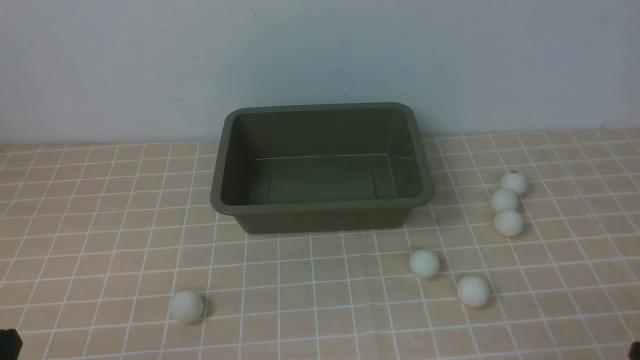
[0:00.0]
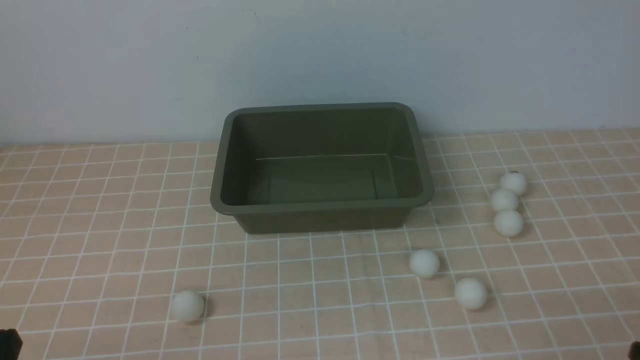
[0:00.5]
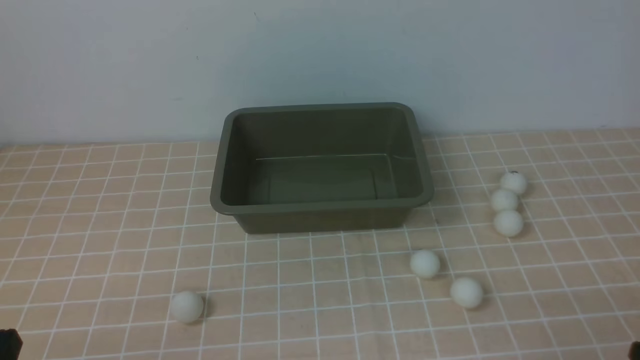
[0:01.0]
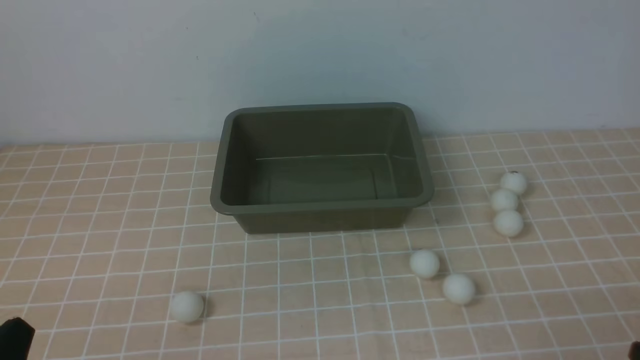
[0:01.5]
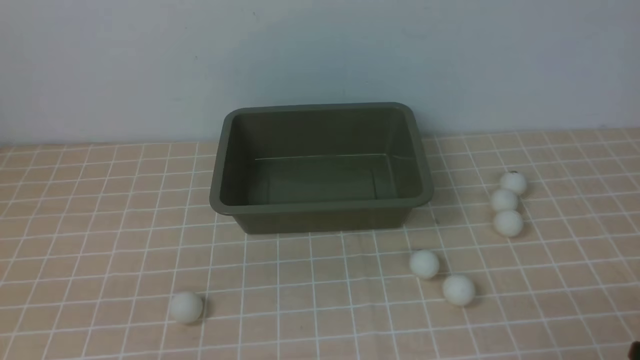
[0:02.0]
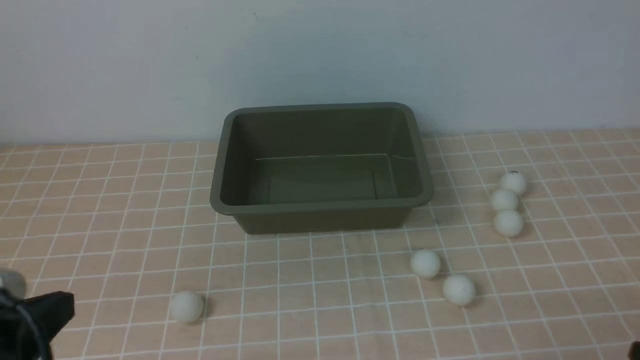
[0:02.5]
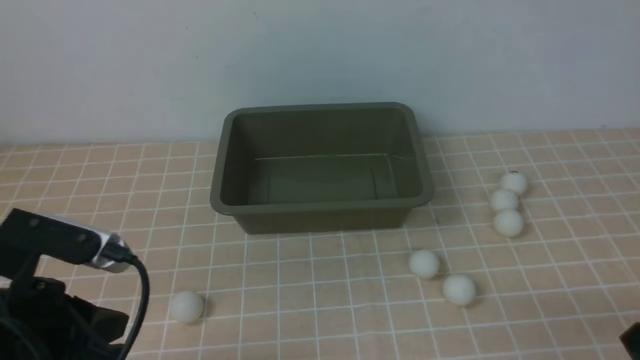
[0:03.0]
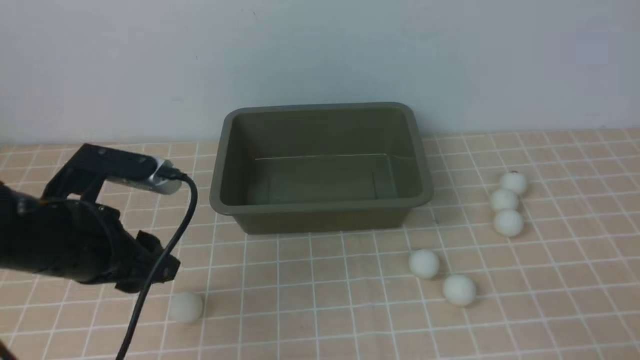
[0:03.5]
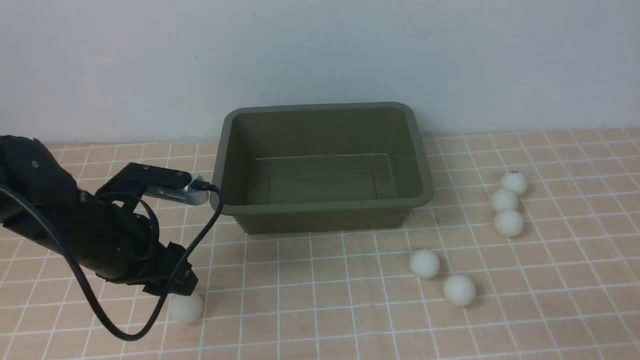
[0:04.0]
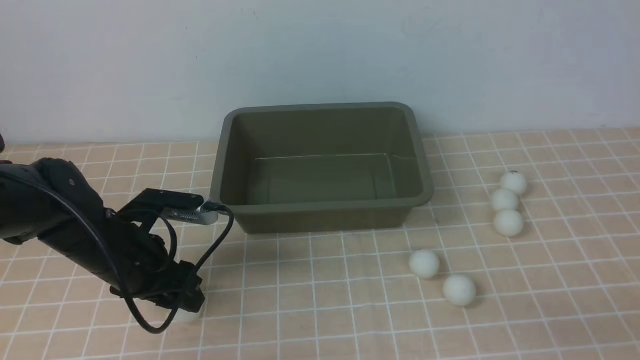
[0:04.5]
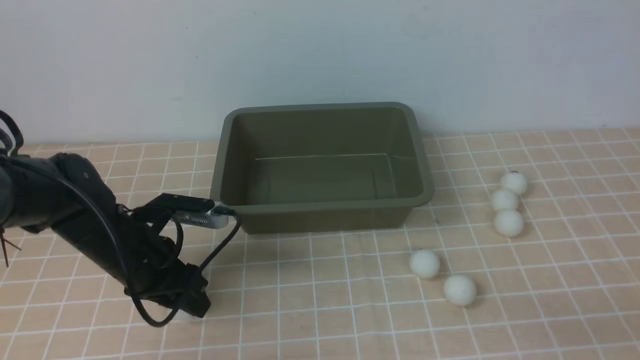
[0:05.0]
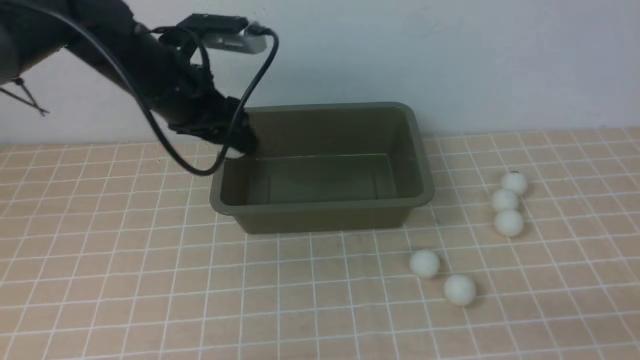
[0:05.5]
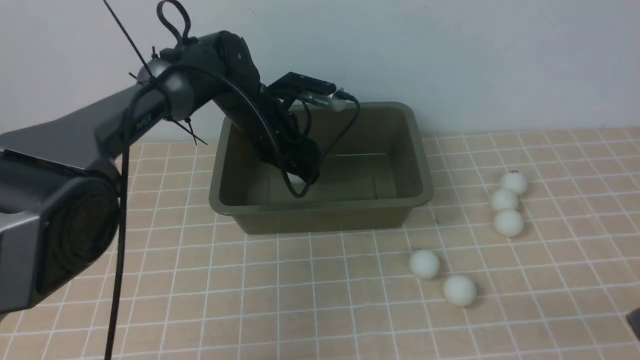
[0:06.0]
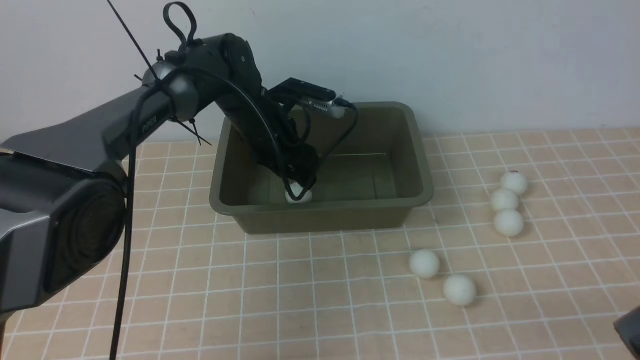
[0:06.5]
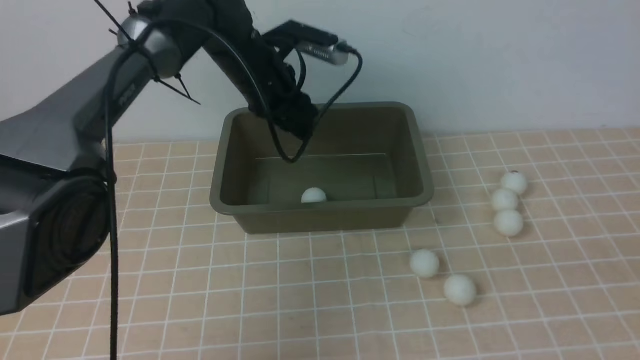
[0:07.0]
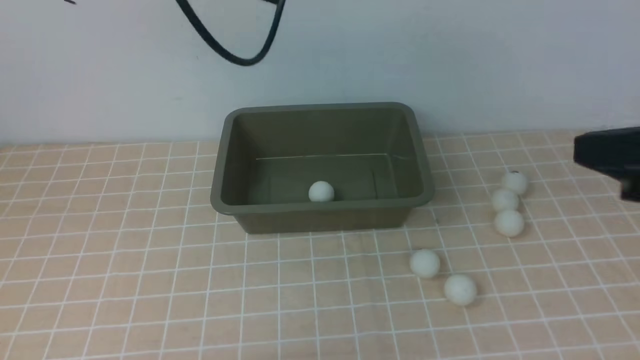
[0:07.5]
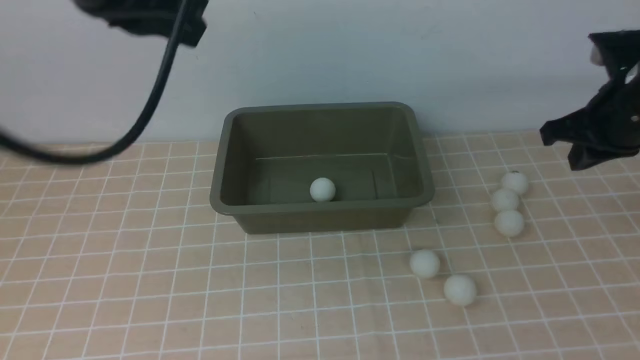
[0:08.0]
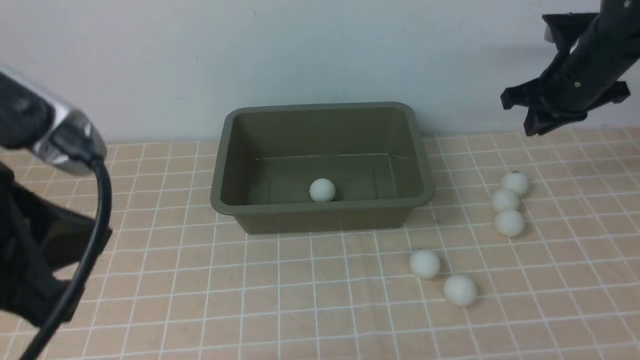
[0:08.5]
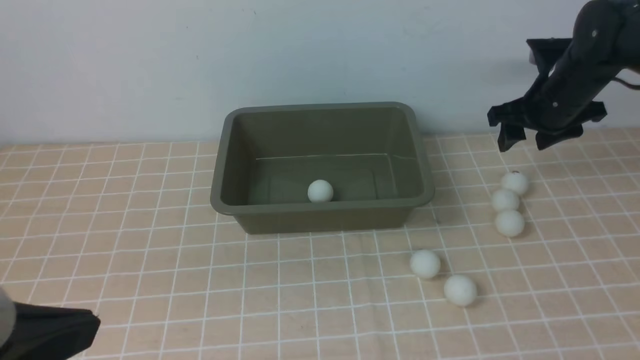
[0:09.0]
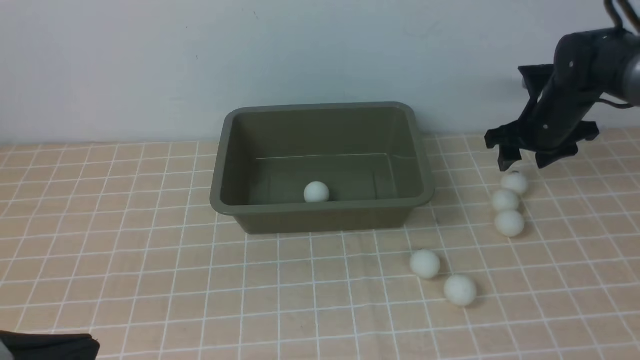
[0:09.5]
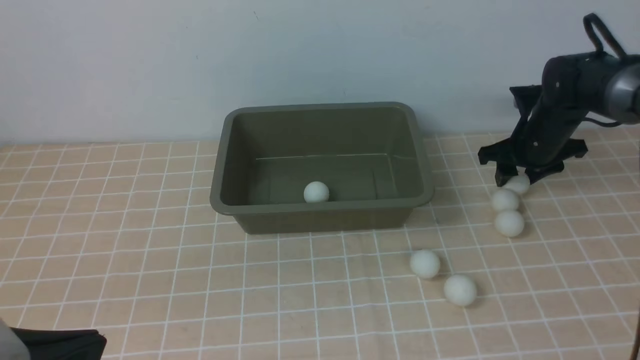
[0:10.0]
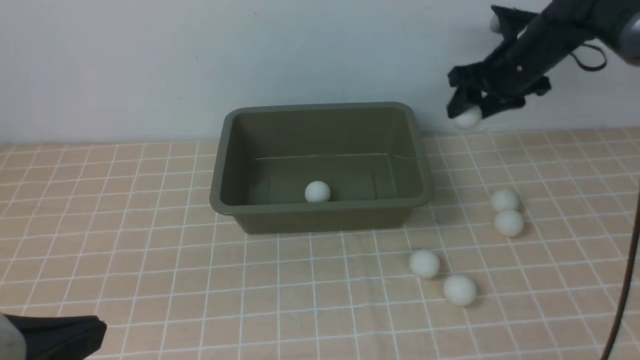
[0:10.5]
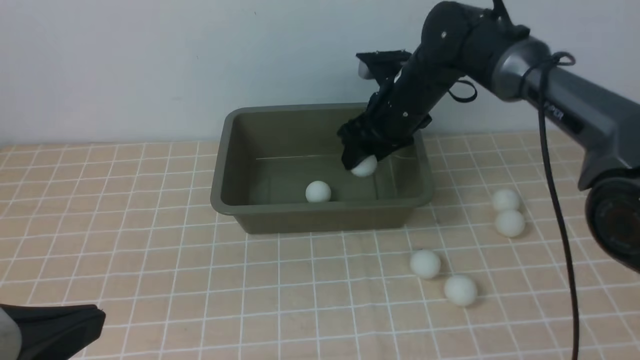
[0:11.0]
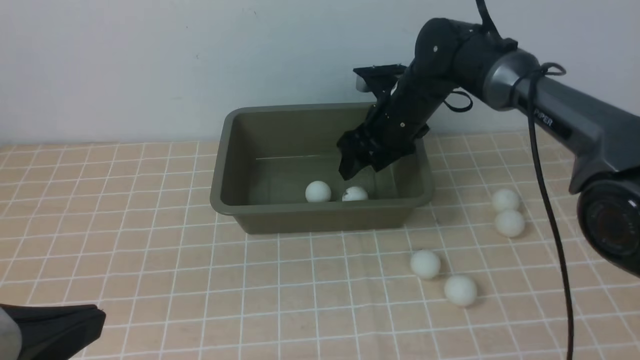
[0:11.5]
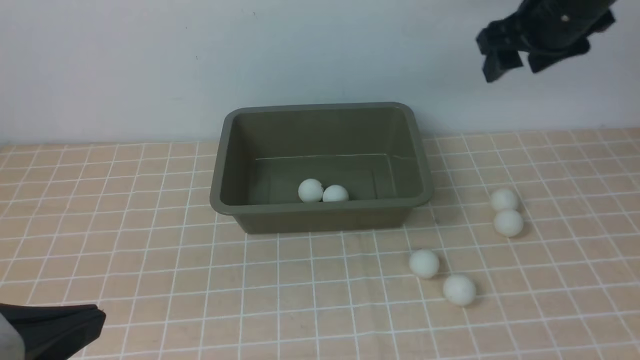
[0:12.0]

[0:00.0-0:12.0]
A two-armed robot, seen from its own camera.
Step, 0:00.0 to 0:05.0: use the left arm to clamp the table tennis ball closest to it.
Step, 0:05.5 to 0:06.5: use the left arm to put the table tennis ball into the box.
Step, 0:07.0 to 0:10.0: use the right arm to clamp the table tennis ball closest to it.
Step, 0:10.5 to 0:12.0: use the right arm to put the table tennis ball into the box.
0:02.0 to 0:04.0: The left gripper heads forward, covering some 20 cm, and opens its fingers.
0:04.0 to 0:06.0: The left gripper is displaced forward and to the right by roughly 25 cm.
0:06.0 to 0:08.0: The right gripper is displaced forward by approximately 30 cm. The left gripper travels upward and backward by about 30 cm, and closes.
0:08.0 to 0:10.0: The left gripper moves backward and downward, approximately 25 cm, while the right gripper is displaced forward and downward by about 20 cm, and opens up.
0:10.0 to 0:12.0: The right gripper shifts about 20 cm upward and to the left.

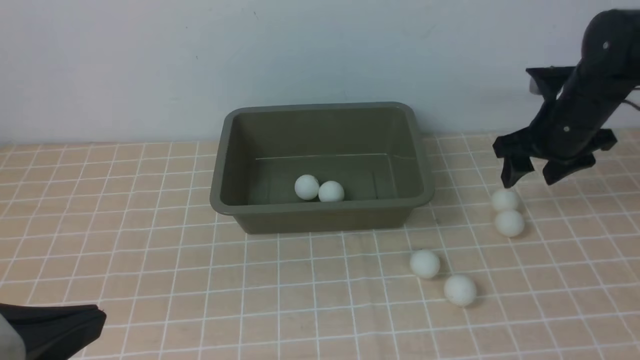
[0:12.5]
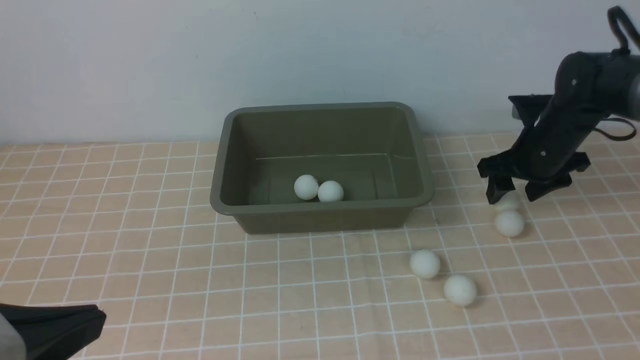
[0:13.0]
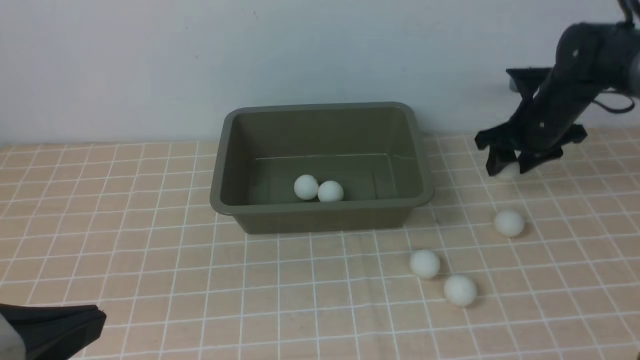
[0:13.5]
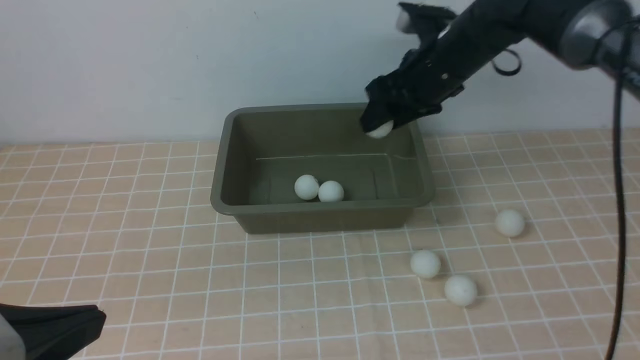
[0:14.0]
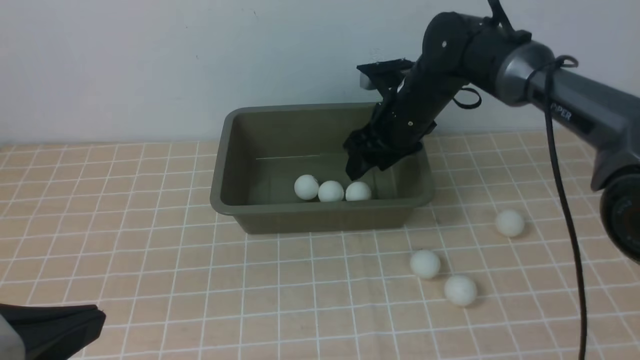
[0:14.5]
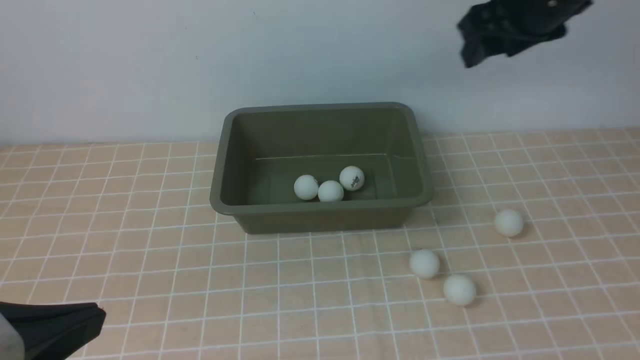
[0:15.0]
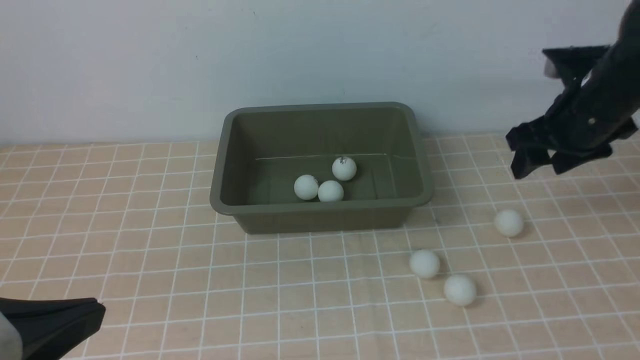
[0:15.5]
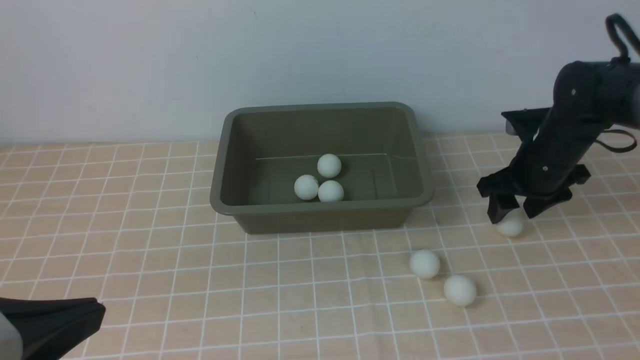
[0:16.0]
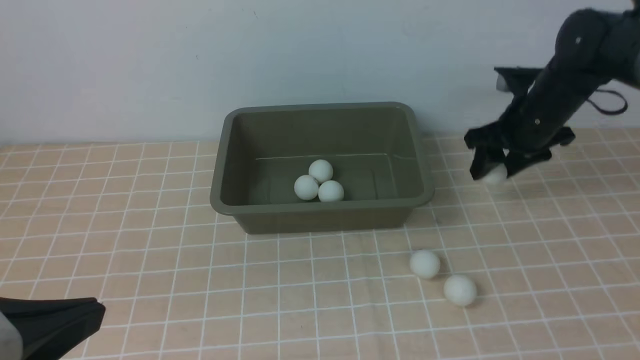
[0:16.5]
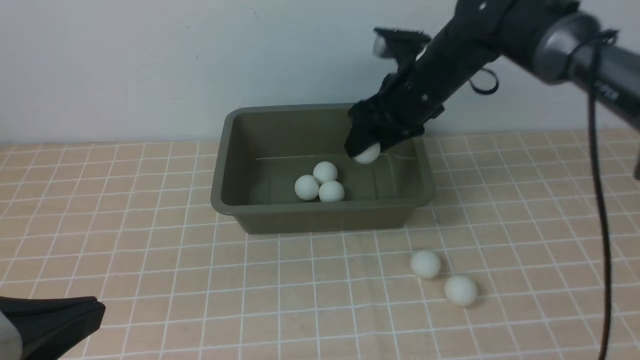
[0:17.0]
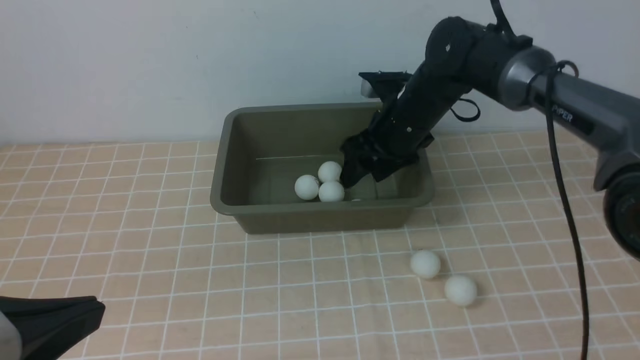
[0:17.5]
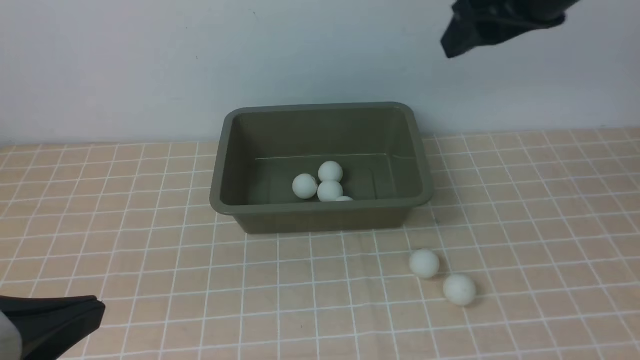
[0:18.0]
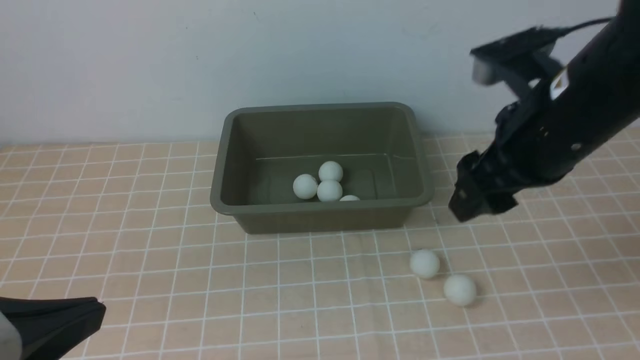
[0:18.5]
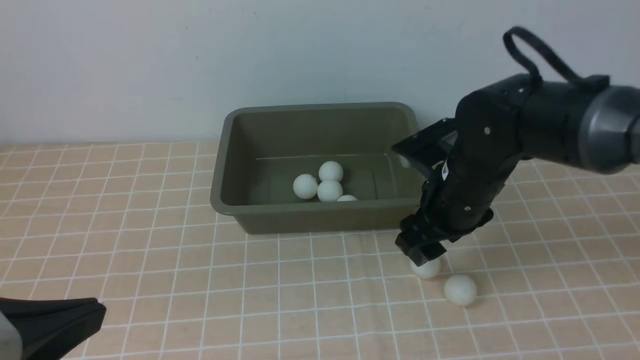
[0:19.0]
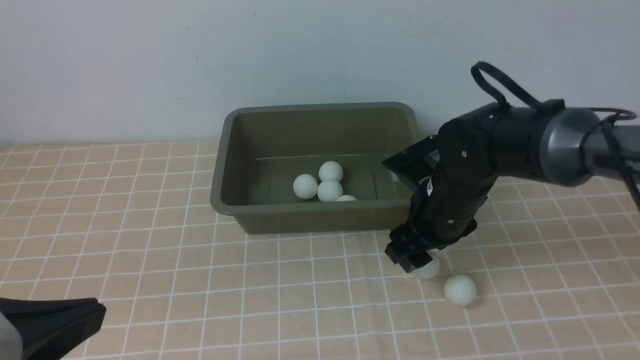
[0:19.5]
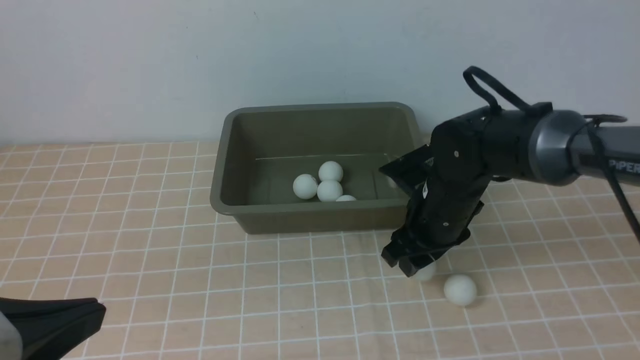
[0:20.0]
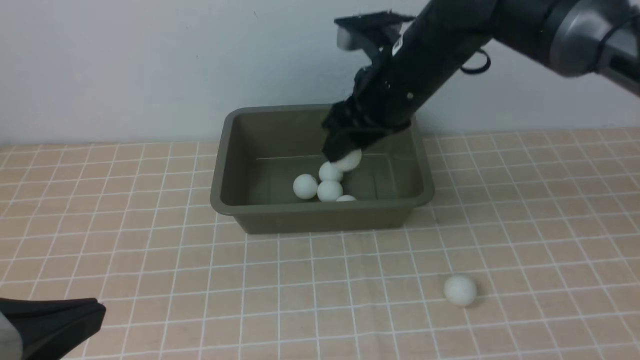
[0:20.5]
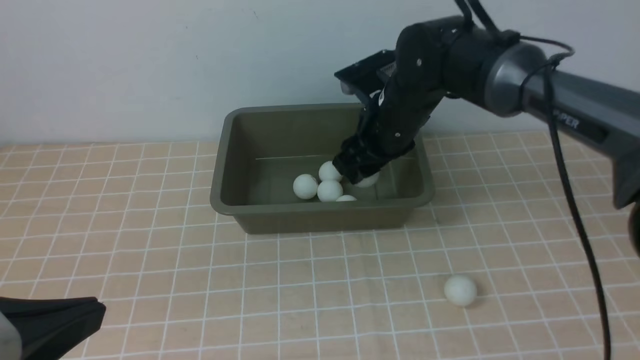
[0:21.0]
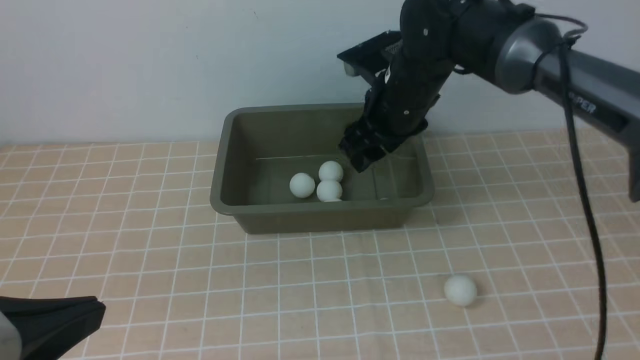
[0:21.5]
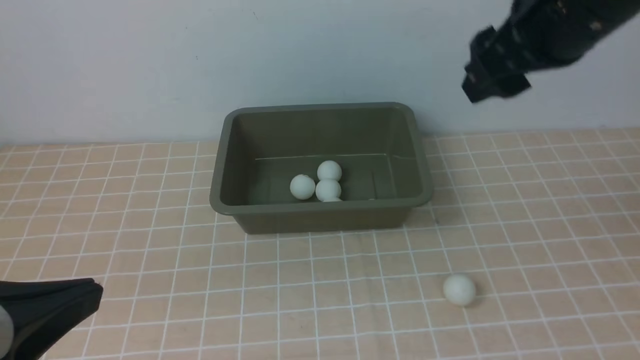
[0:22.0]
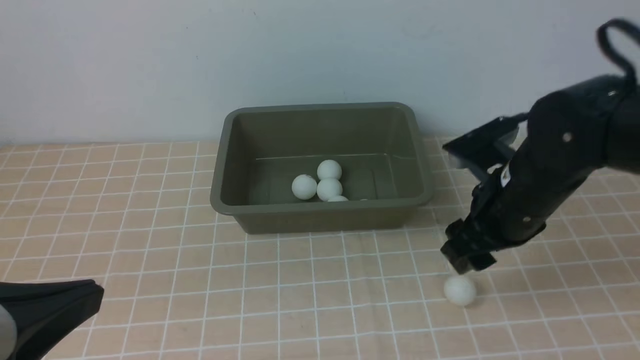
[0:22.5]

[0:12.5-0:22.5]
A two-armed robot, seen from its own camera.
Step, 0:12.5 to 0:13.5: use the right arm to clamp the table tennis ball closest to it.
Step, 0:14.0 to 0:14.5: use the right arm to put the table tennis ball into the box.
Step, 0:15.0 to 0:16.5: use the right arm to clamp the table tennis ball closest to it.
Step, 0:17.0 to 0:17.5: use the right arm to put the table tennis ball into the box.
Step, 0:18.0 to 0:20.0: use the right arm to clamp the table tennis ball closest to it.
Step, 0:20.5 to 0:21.5: use the right arm to put the table tennis ball into the box.
0:12.5 to 0:14.5: The right gripper travels to the left by roughly 15 cm.
0:14.5 to 0:16.5: The right gripper is displaced to the right by about 15 cm.
0:16.5 to 0:18.5: The right gripper swings up and down, about 15 cm each way, with 2 reversals.
0:18.5 to 0:20.5: The right gripper travels to the left, forward and downward by about 15 cm.
0:20.5 to 0:22.5: The right gripper is displaced to the right and backward by about 10 cm, and reaches roughly 10 cm upward, then returns.
